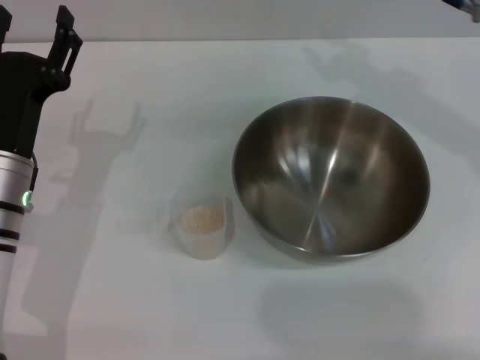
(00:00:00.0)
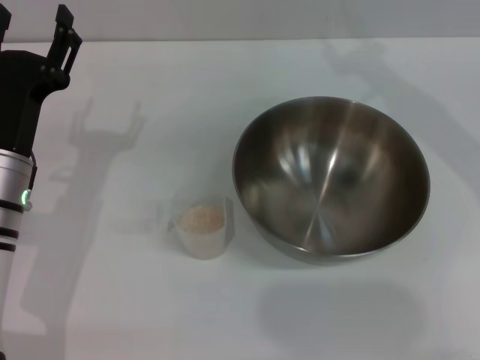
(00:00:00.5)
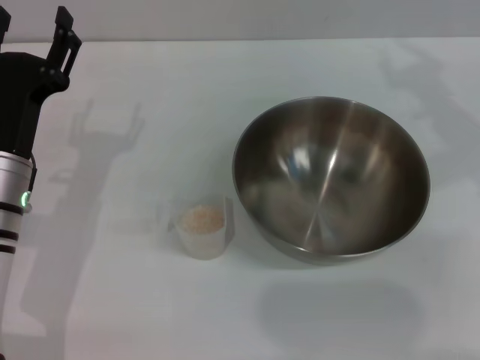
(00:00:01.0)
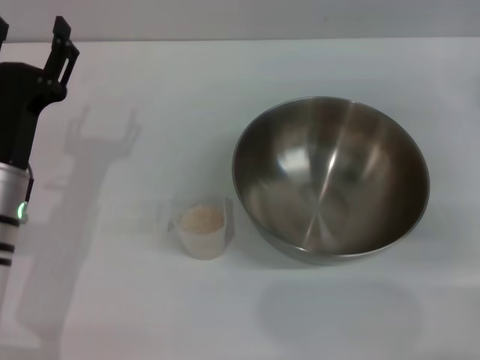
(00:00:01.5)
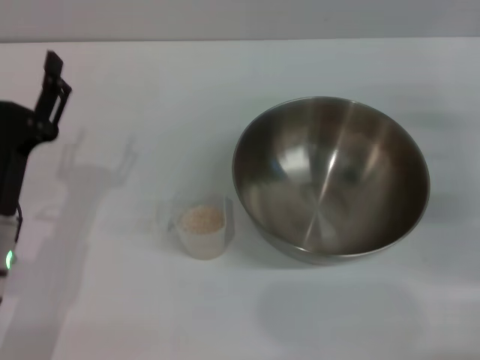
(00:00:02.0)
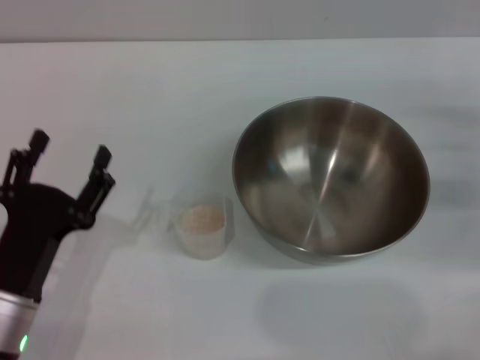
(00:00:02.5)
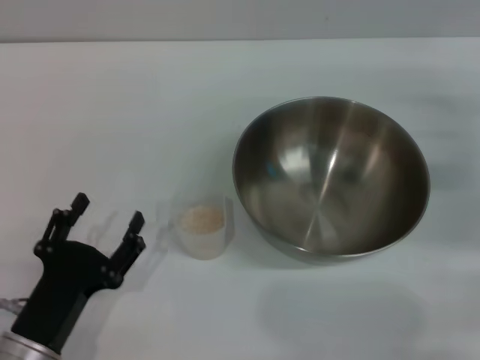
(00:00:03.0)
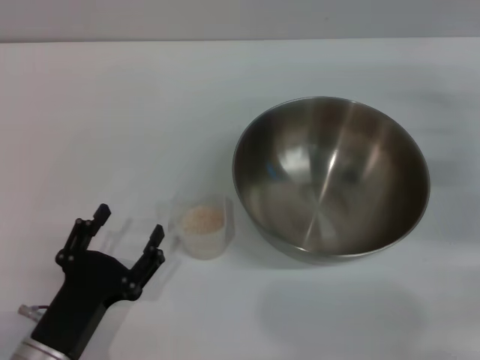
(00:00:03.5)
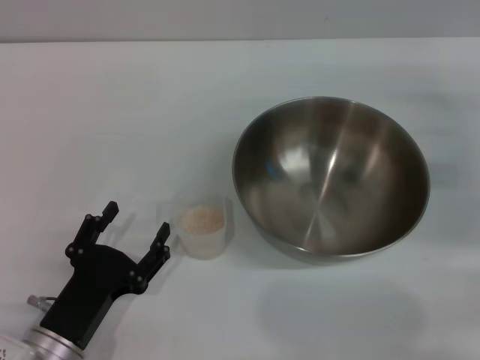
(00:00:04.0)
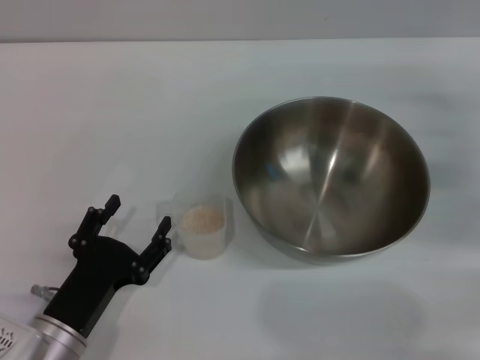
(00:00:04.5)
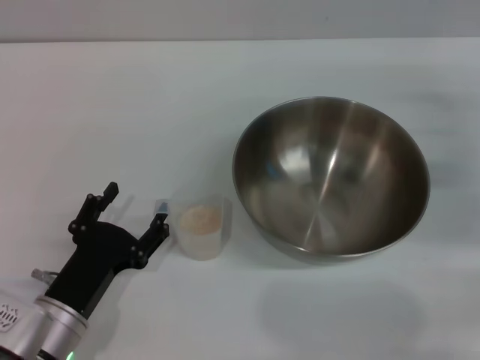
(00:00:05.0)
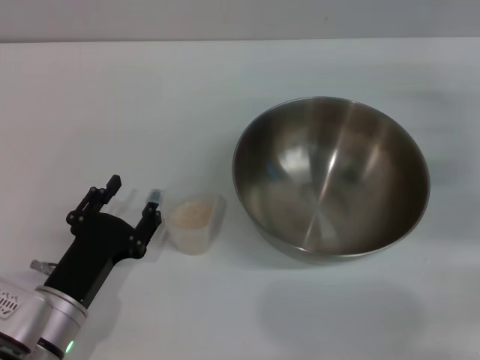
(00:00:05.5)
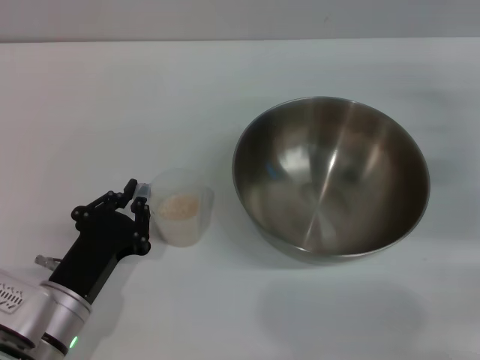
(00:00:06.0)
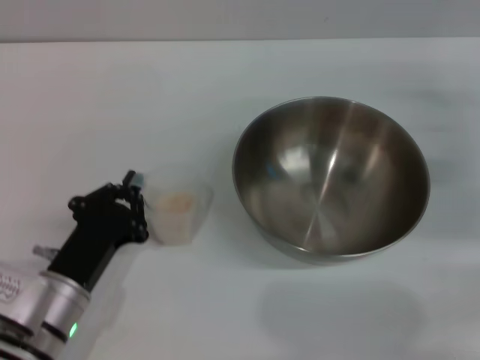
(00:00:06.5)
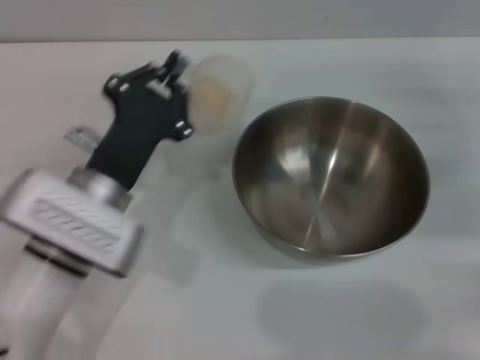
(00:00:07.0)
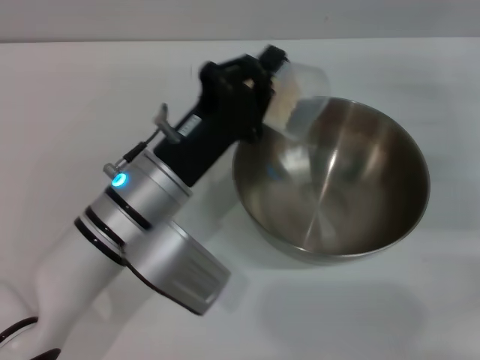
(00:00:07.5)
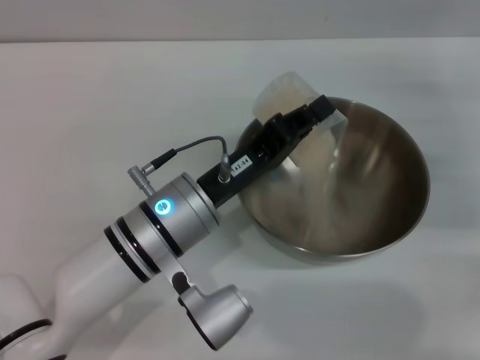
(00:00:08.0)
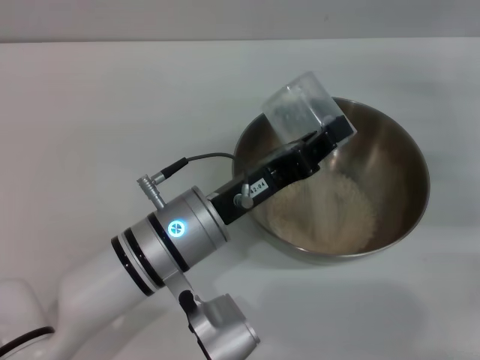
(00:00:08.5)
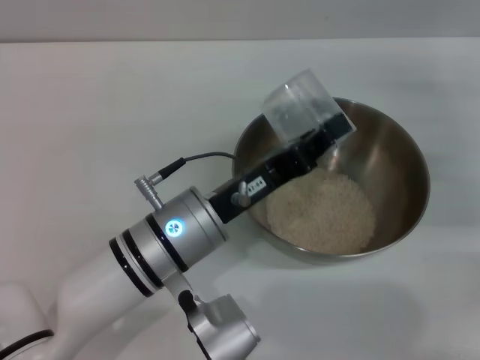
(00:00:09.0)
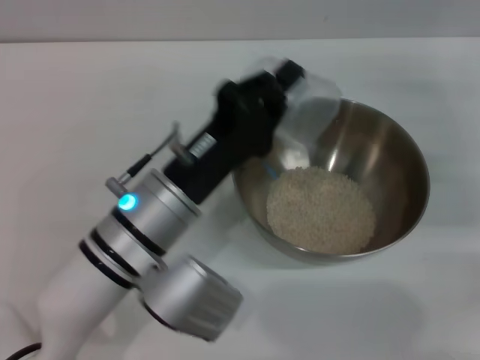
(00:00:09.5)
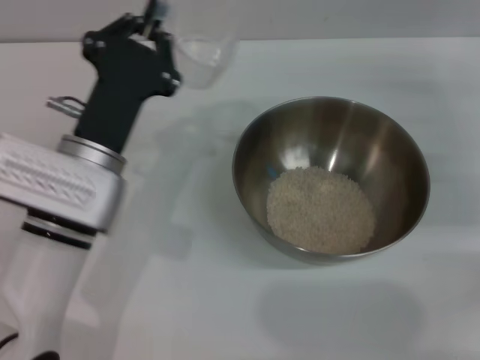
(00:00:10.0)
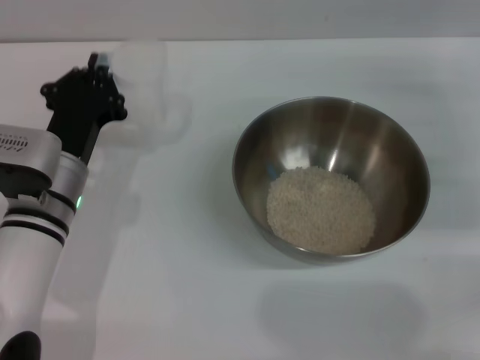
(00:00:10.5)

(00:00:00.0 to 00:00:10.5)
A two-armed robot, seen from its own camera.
Task of the whole recording: Place the bowl in the middle of the table with one hand and pour the rice from the grain cup into it with the other hand.
Step, 00:00:00.0 - 00:00:06.5: Pick up the cup with rice in it with the left gripper.
Step, 00:00:07.0 - 00:00:09.0: Pour the rice from the cup into the bowl with the left gripper.
00:00:00.0 - 00:00:02.0: The right gripper goes approximately 25 cm to the right, downward and backward, while the left gripper moves backward, about 5 cm.
00:00:02.0 - 00:00:04.0: The left gripper is displaced backward and downward by some 10 cm.
00:00:04.0 - 00:00:06.5: The left gripper changes place by about 5 cm, and closes its fingers.
00:00:06.5 - 00:00:08.5: The left gripper goes approximately 15 cm to the right, upward and forward.
00:00:08.5 - 00:00:10.5: The left gripper shifts roughly 10 cm to the left.

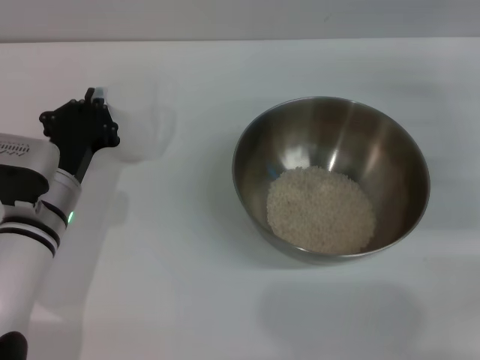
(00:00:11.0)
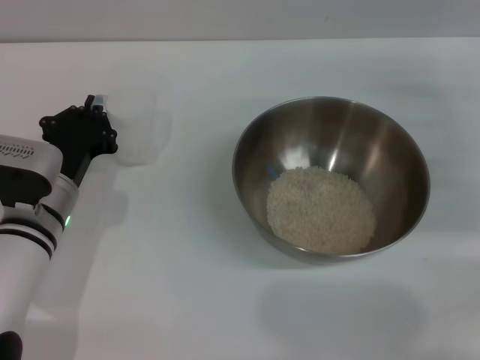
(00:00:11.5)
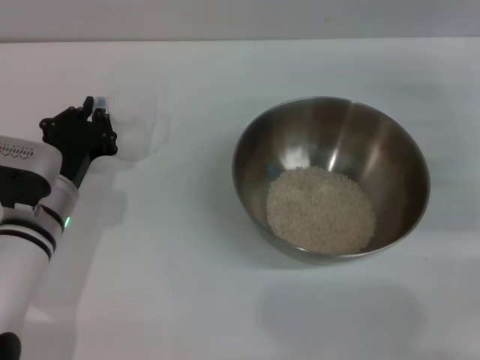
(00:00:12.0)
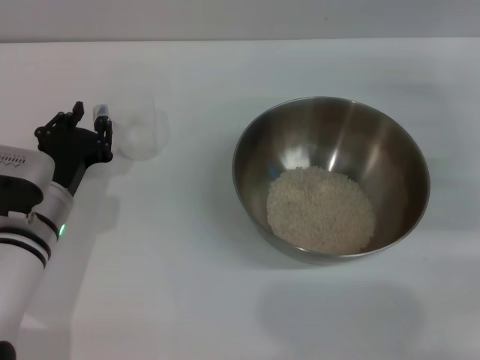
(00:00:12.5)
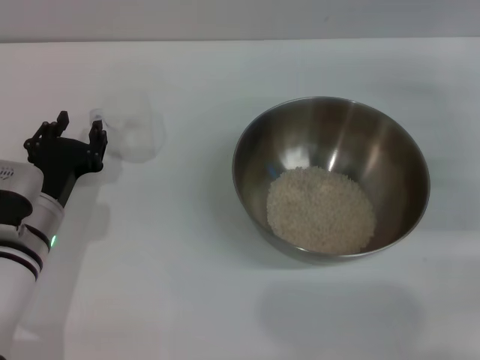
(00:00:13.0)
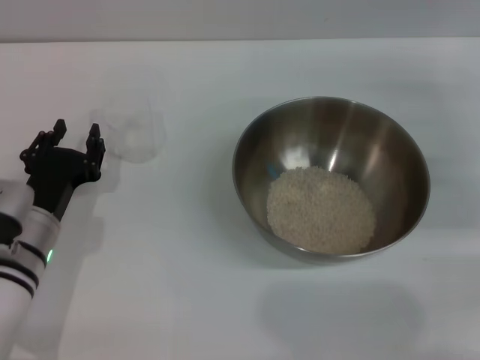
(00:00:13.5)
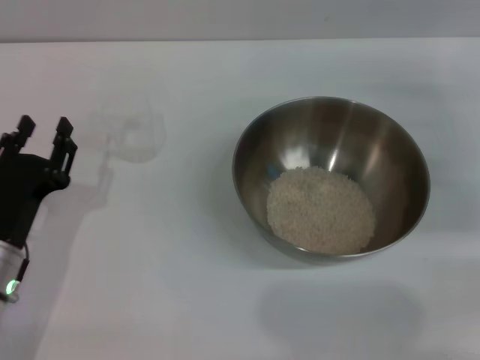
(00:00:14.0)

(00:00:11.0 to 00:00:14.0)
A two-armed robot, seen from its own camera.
Task of the whole recording: Place the bowl in the middle of the table with one hand and pour the rice from the grain cup into it with the other hand.
Step, 00:00:11.0 - 00:00:13.5: Place the cup on the table with the left gripper.
00:00:11.0 - 00:00:12.5: The grippers move only a little.
00:00:12.5 - 00:00:14.0: The left gripper moves backward, some 5 cm, and opens.
